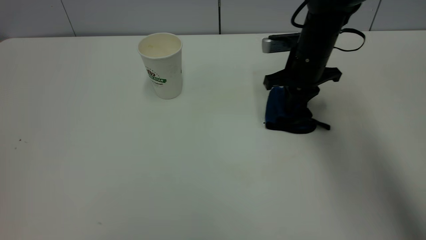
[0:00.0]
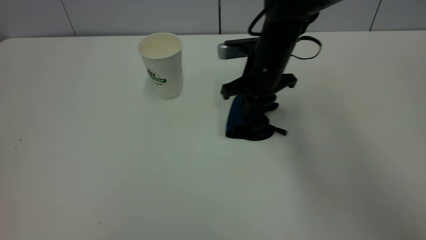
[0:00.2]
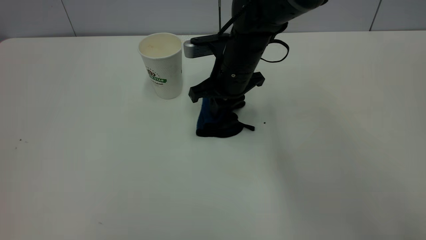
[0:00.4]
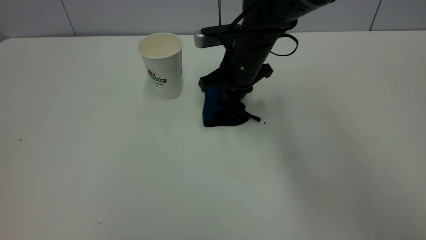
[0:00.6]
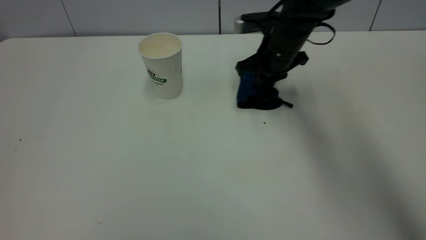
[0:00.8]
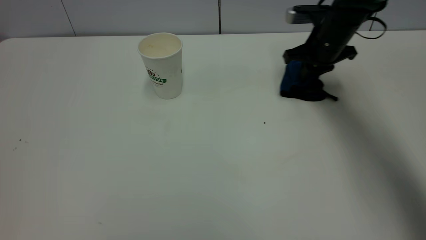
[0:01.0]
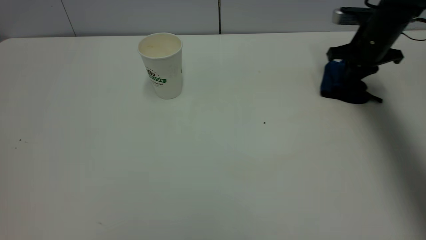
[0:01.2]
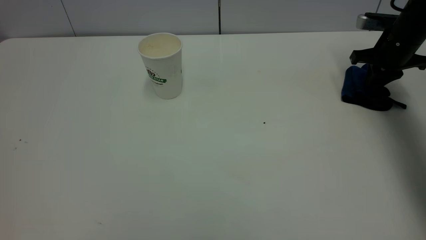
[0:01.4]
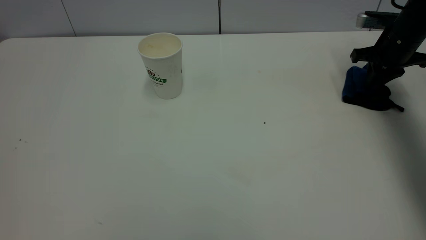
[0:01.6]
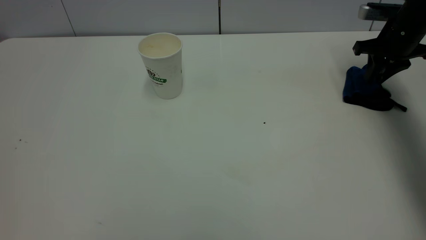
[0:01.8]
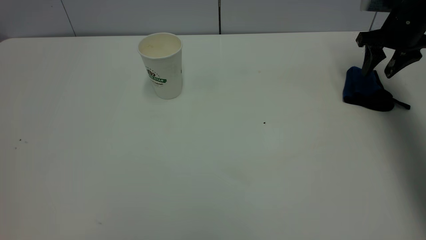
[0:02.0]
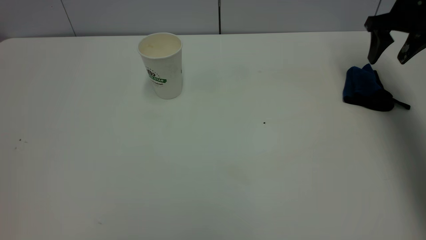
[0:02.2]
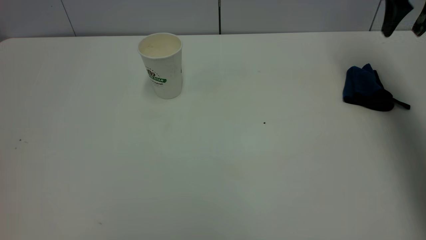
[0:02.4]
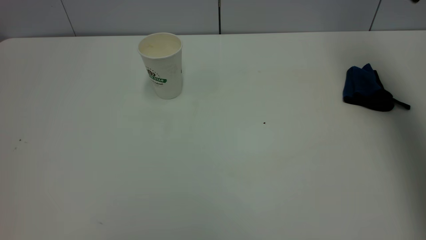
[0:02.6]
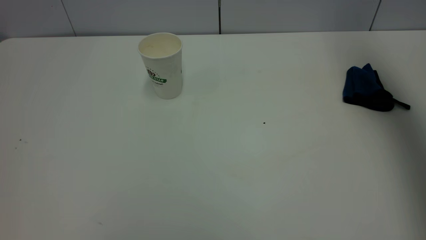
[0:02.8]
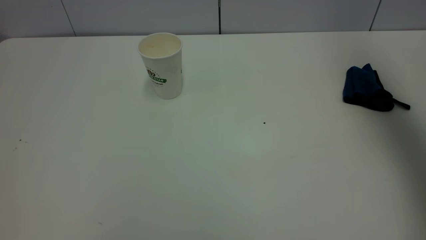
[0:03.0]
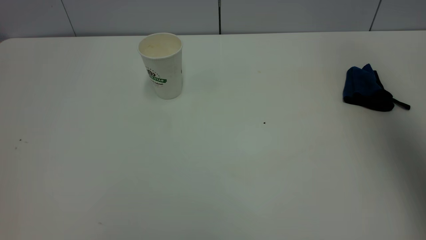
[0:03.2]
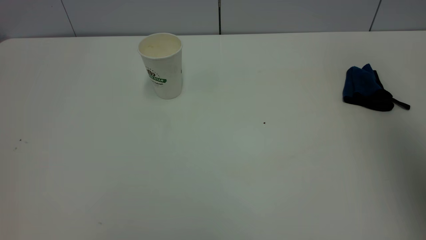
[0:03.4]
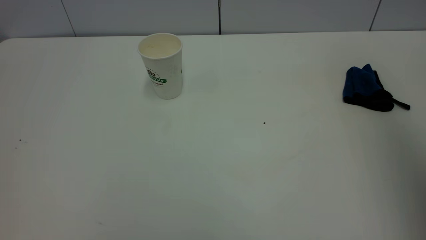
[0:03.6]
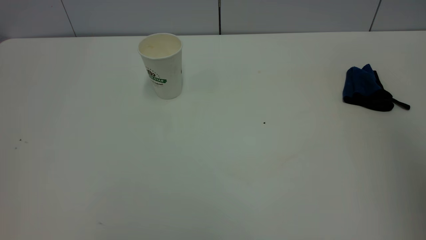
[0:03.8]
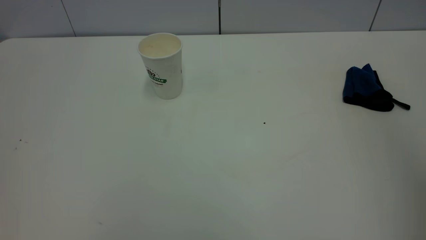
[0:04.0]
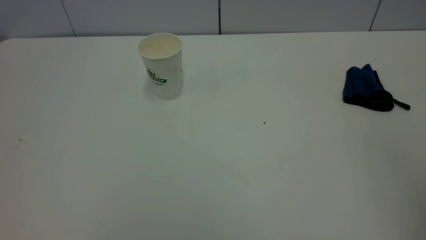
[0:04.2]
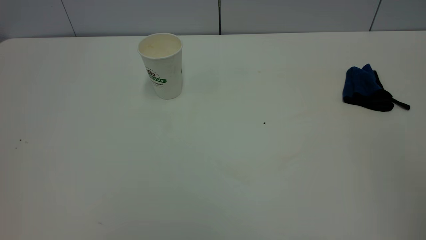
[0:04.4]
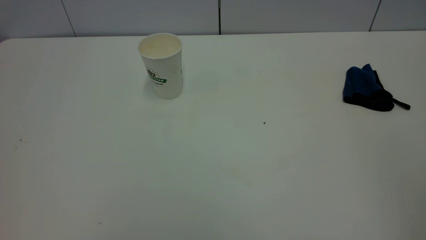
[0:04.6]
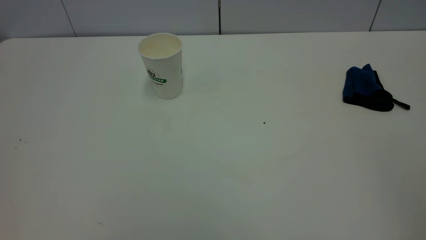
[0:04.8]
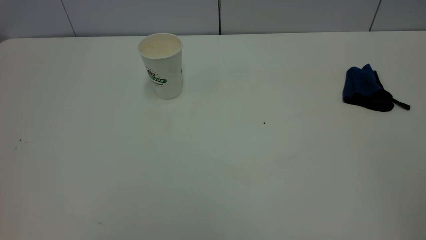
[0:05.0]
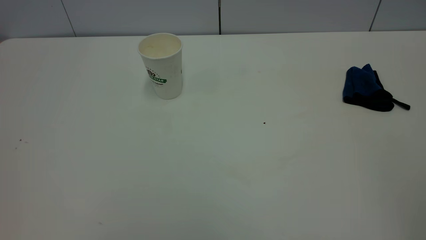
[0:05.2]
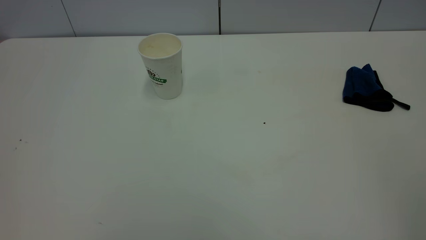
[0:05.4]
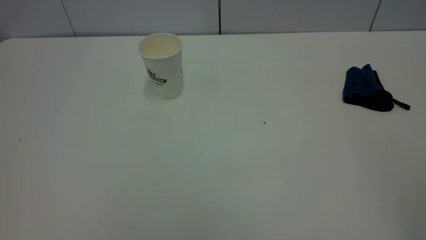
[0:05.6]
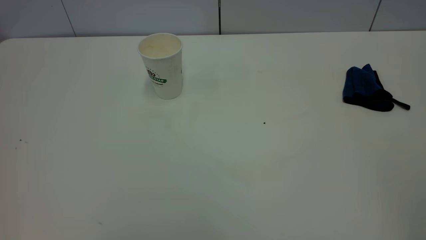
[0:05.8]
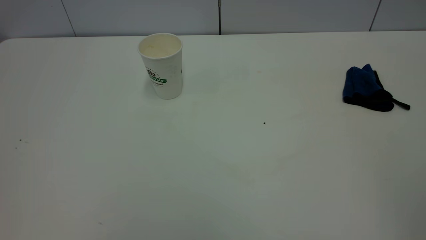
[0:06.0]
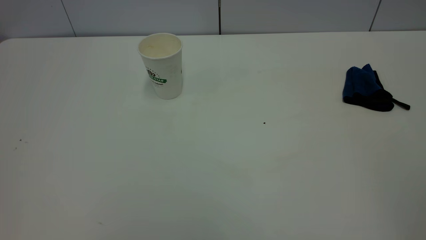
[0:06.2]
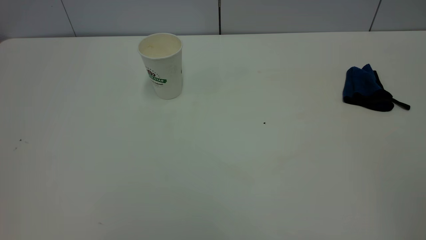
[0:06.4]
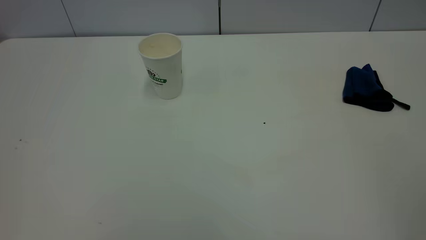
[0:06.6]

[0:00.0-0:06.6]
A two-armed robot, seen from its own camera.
Task of the whole recording: the left gripper pick up the fallen cup and place it upright, the right gripper grasp the blue rag and wipe the tea stain on the table, the right gripper put the blue rag back in its original position.
Step, 0:00.0 to 0:02.2: Wipe the stains off the table with a rag.
0:00.0 to 0:01.6: The right gripper travels to the right by roughly 20 cm.
0:01.6 to 0:03.2: The right gripper goes approximately 40 cm upward and backward, and opens.
0:03.2 to 0:05.0: The right gripper travels backward by some 30 cm.
0:05.0 to 0:06.6: Neither gripper changes place.
